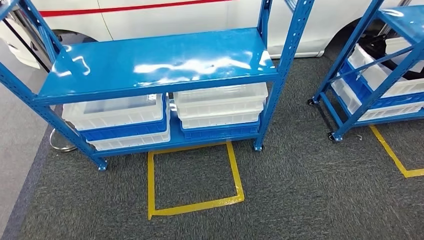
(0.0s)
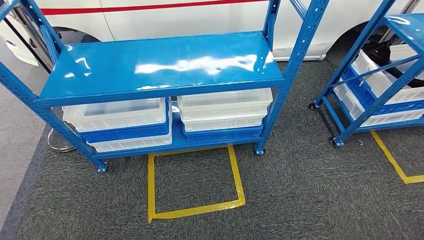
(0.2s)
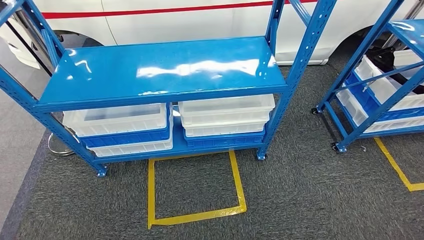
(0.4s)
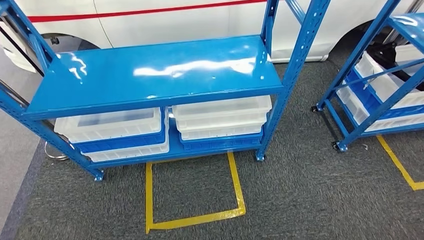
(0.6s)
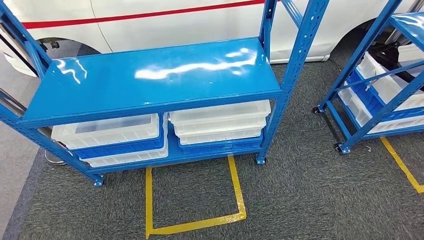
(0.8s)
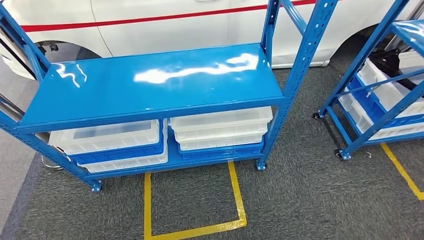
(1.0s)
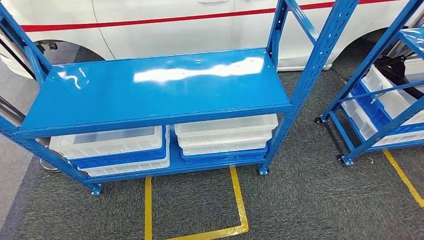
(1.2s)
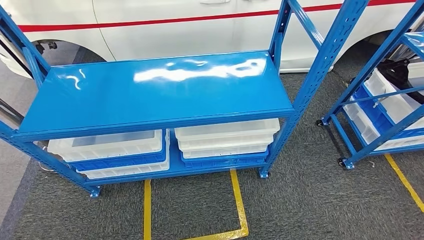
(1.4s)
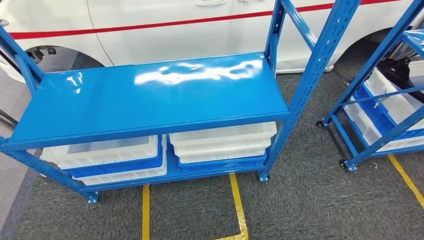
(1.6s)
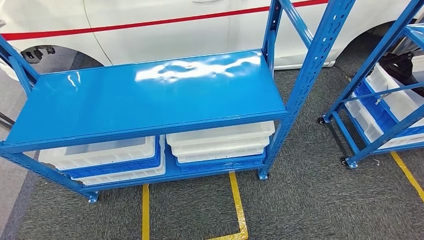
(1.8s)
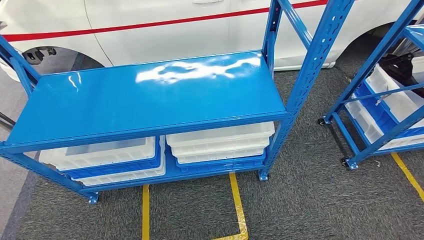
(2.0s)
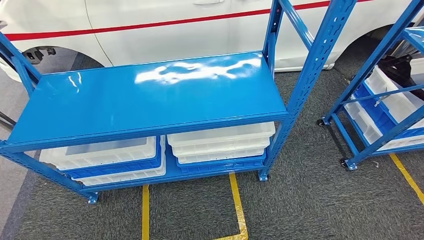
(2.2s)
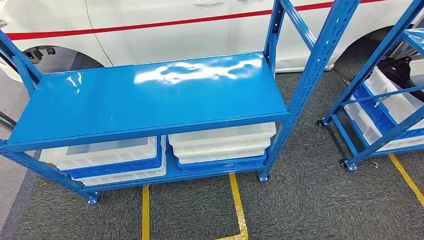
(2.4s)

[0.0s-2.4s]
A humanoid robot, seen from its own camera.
Step, 0.0s to 2.4s: Move to the initial position of the shelf.
